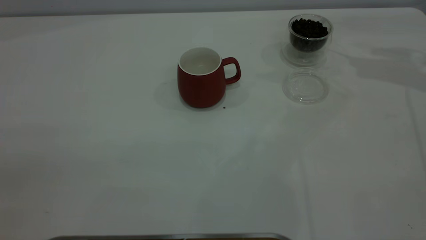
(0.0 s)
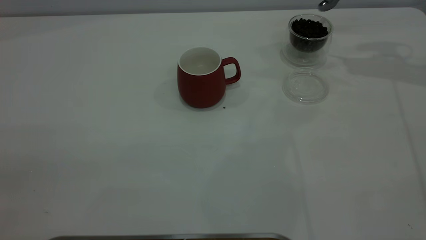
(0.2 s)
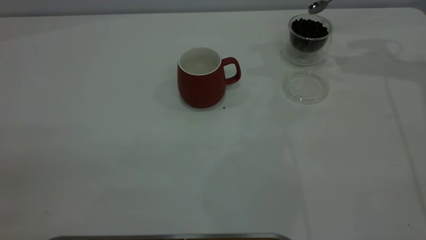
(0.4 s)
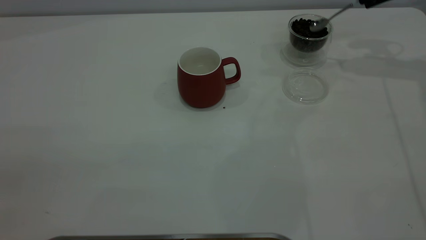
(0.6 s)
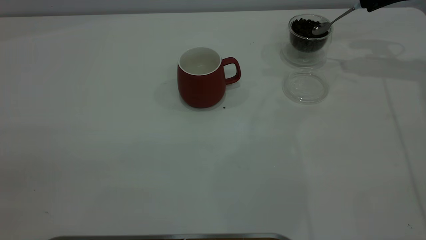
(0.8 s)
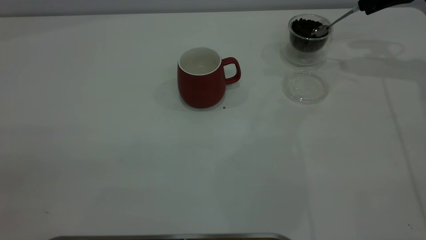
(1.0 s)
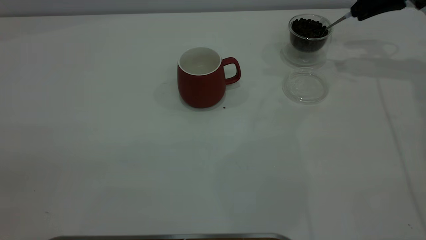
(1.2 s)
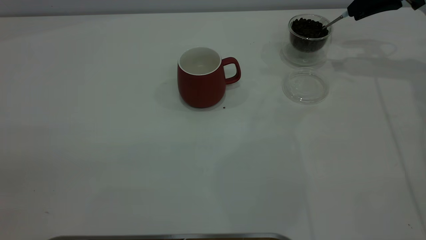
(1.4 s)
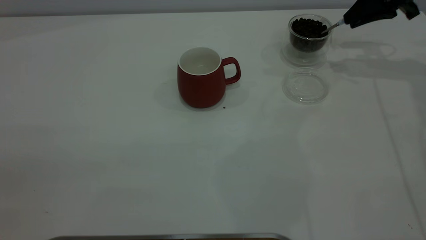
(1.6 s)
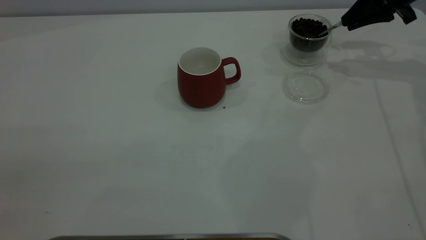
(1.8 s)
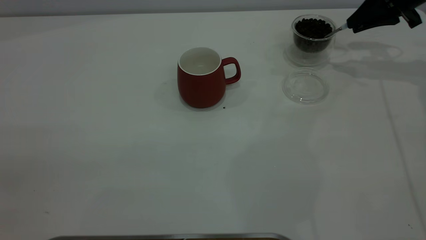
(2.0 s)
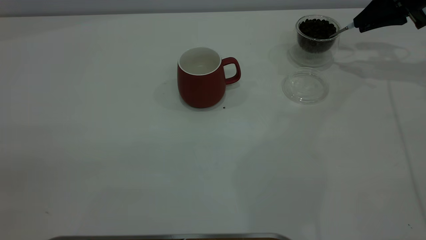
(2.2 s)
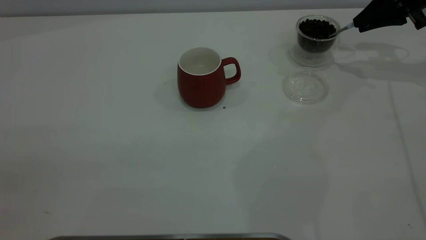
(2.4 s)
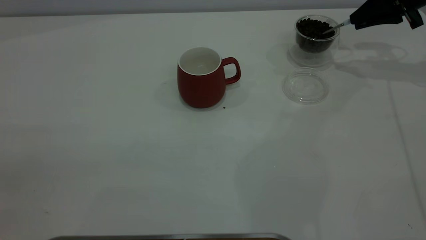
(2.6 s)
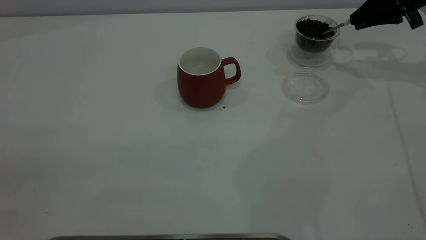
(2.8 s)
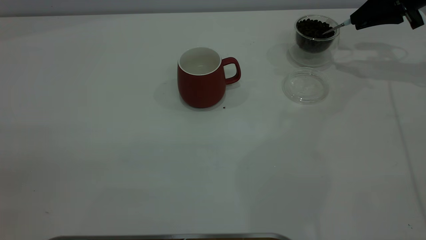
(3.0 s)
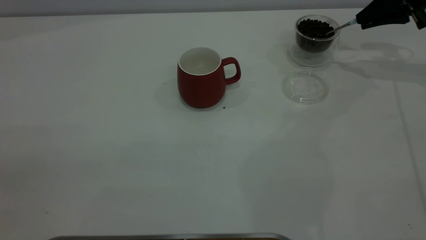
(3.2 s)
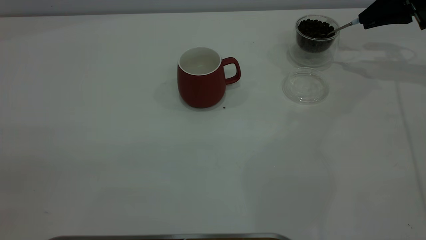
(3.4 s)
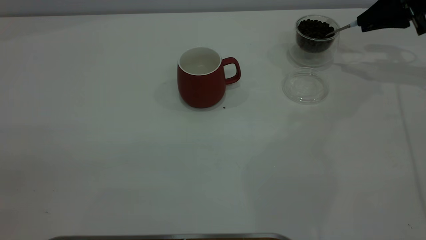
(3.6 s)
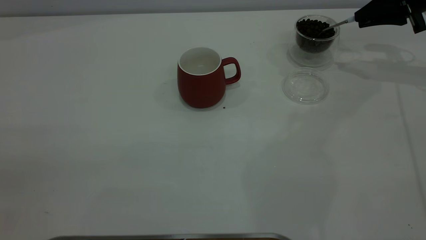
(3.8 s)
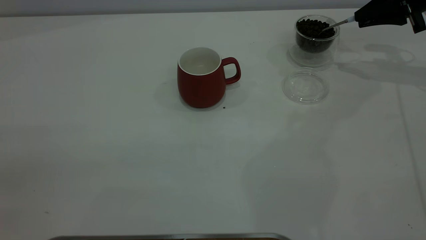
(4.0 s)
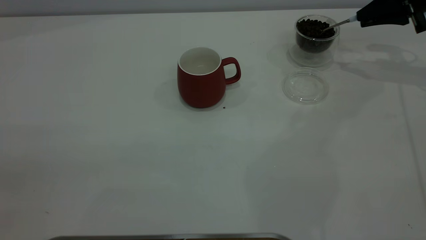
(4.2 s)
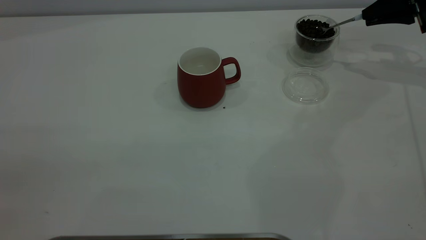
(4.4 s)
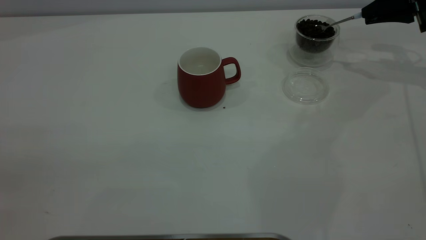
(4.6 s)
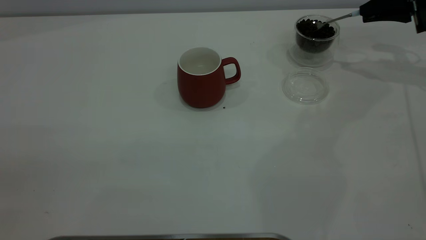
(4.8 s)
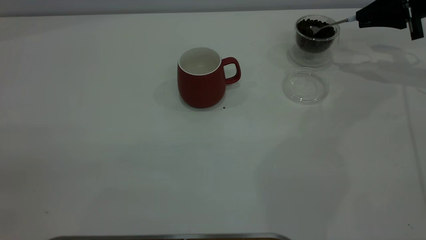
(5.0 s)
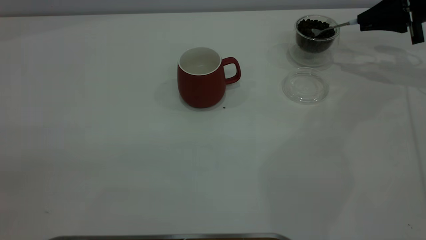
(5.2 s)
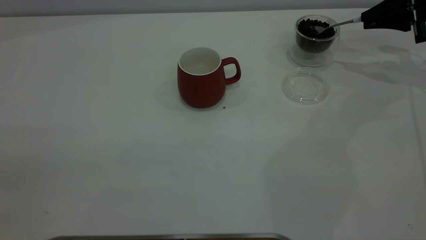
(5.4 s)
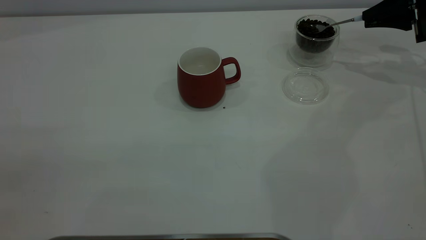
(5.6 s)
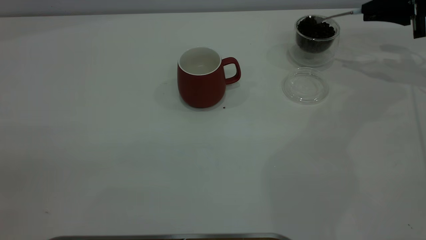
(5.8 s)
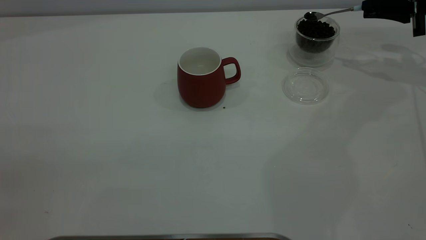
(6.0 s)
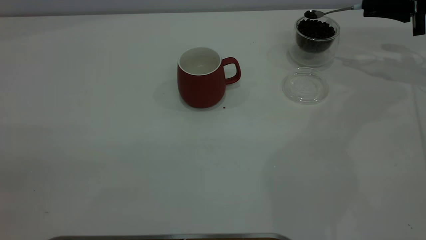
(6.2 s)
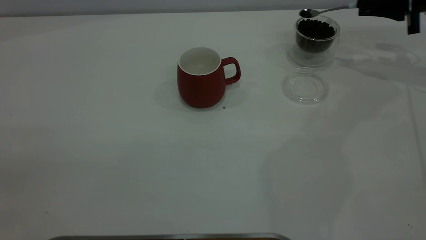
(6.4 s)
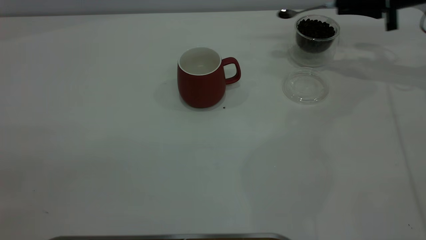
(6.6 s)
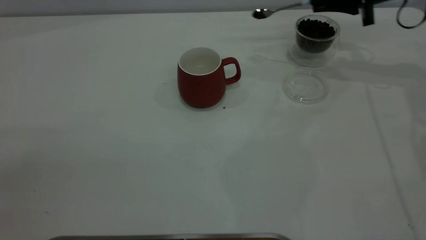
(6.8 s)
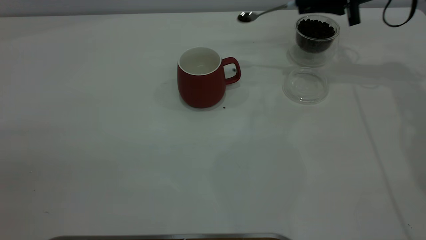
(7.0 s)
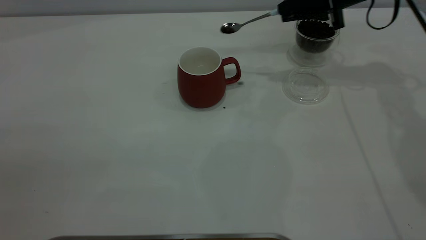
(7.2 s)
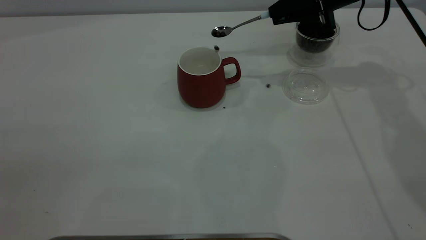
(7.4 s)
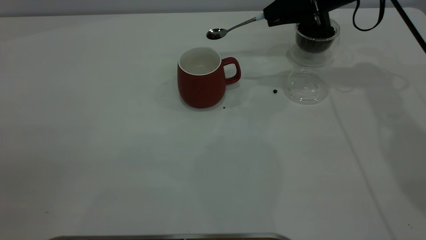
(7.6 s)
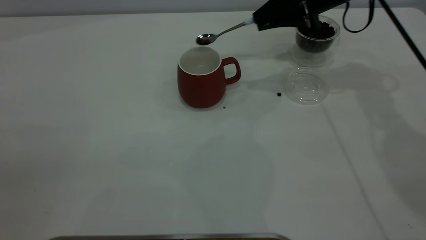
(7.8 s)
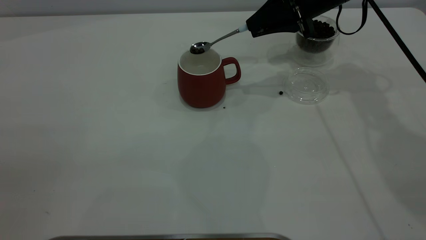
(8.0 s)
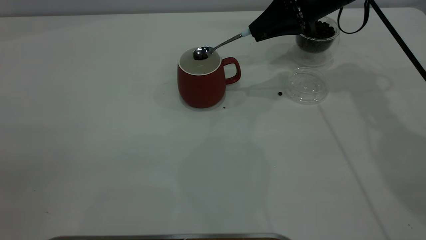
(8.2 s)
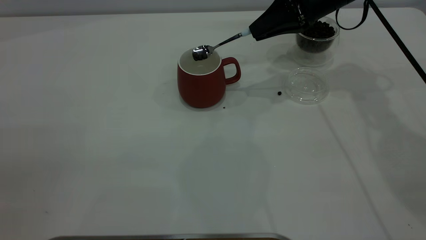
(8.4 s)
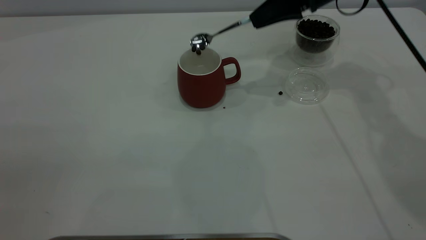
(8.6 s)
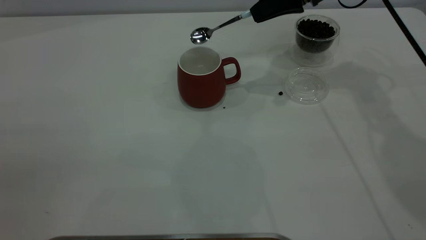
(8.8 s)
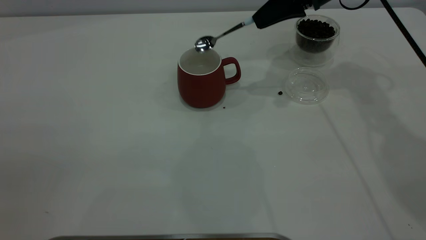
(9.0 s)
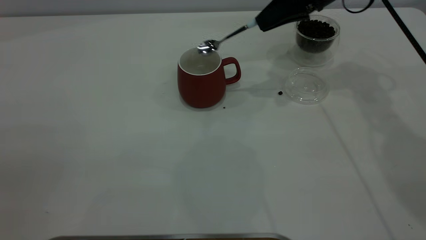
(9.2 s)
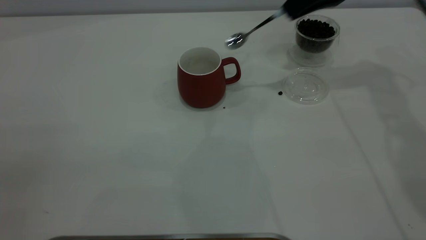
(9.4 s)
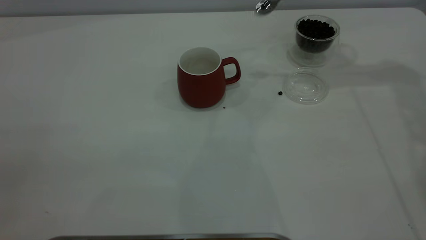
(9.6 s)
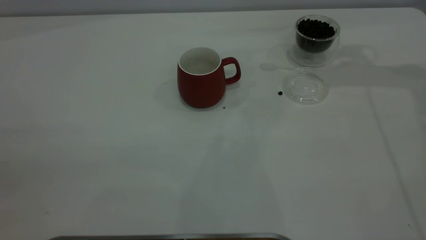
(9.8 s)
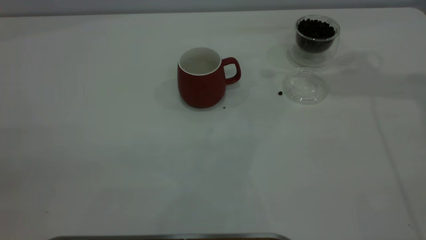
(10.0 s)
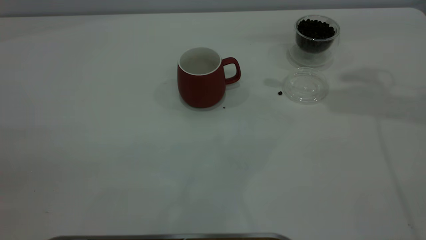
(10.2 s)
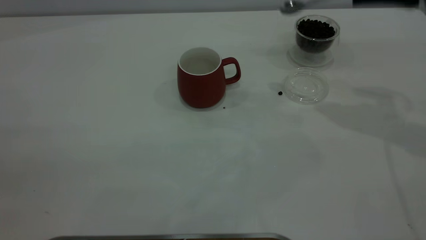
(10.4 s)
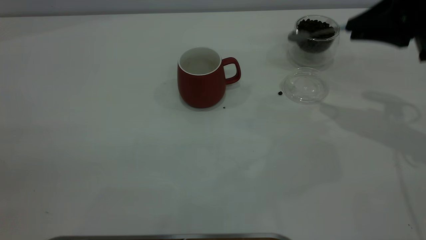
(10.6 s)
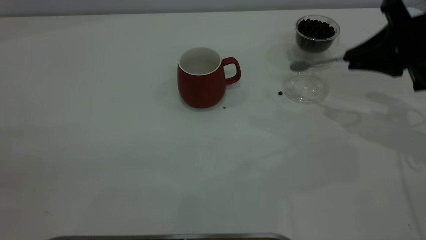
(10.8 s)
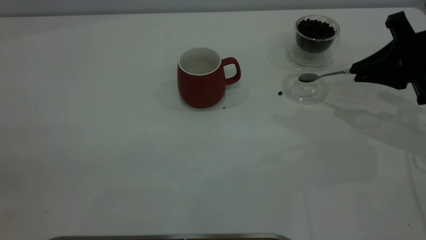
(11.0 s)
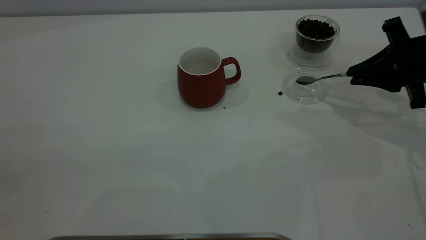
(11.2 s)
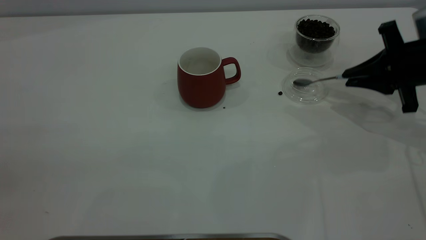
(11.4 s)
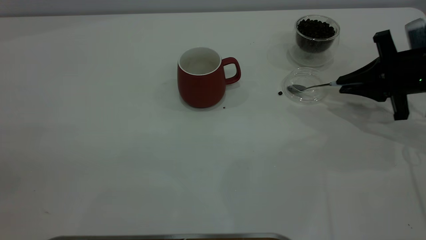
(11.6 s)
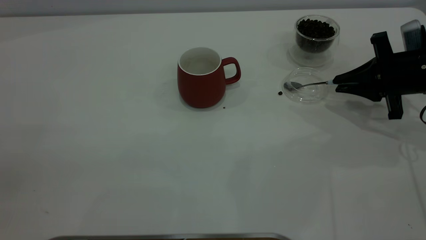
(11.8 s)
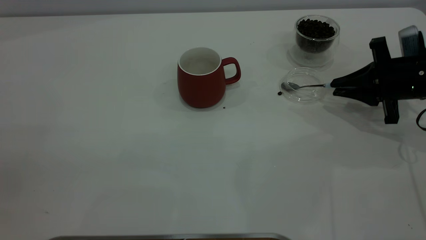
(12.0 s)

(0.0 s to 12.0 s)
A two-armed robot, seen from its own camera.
Task of the whole recording: the left gripper place the red cup in the center of the table, the right gripper take the blue spoon from the cup lid and scoop out the coffee beans from the coffee cup and put them into the red cup, the right gripper put the spoon back into the cup lid.
Step, 0.0 s - 8.8 s: Scoop a spoonful of beans into the cup.
0.0 s - 1.6 s: The right gripper shifts some 5 cm downward.
1.6 s - 3.0 s: The grippers make only small movements.
4.4 s - 6.0 s: The grippers stay close to where they were, moving slightly.
6.0 s - 7.6 s: The right gripper is displaced to the left by some 20 cm.
9.0 s - 10.4 s: The right gripper moves backward and to the right, about 15 cm, and reaches approximately 15 cm upward, then returns.
10.4 s - 12.0 s: The right gripper is displaced downward by about 15 cm.

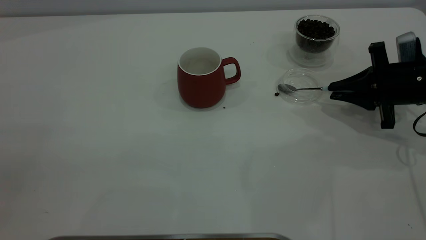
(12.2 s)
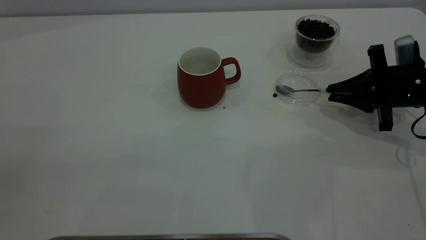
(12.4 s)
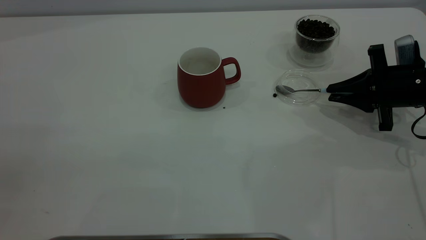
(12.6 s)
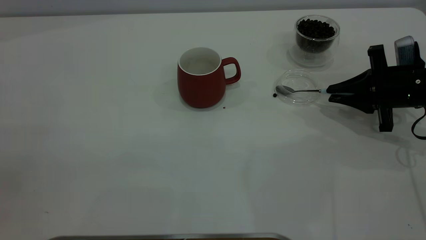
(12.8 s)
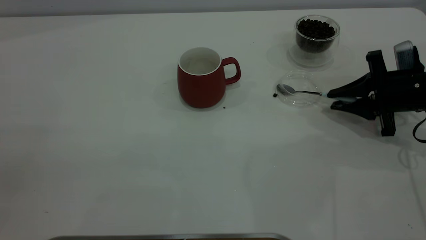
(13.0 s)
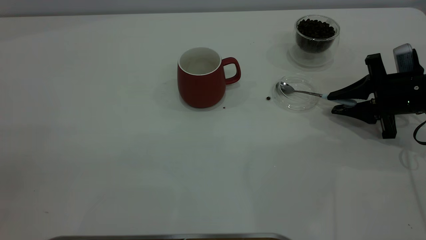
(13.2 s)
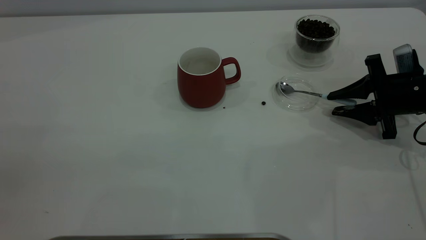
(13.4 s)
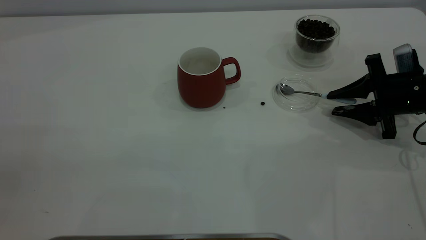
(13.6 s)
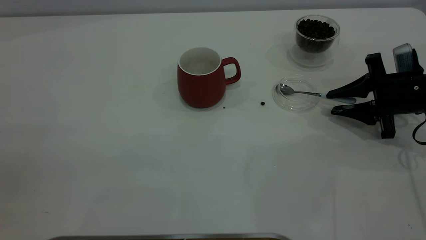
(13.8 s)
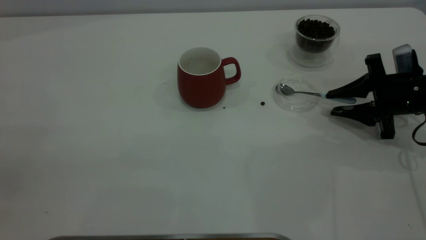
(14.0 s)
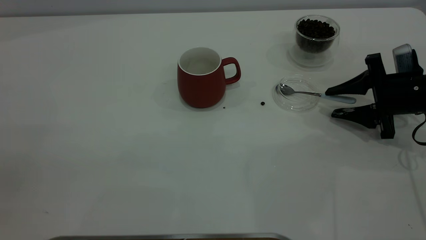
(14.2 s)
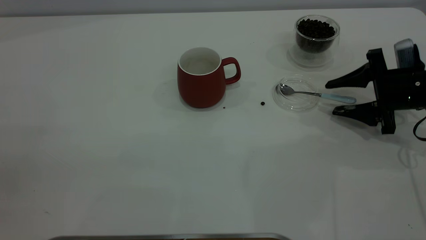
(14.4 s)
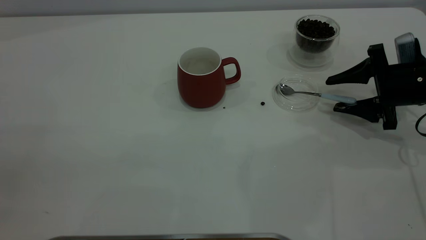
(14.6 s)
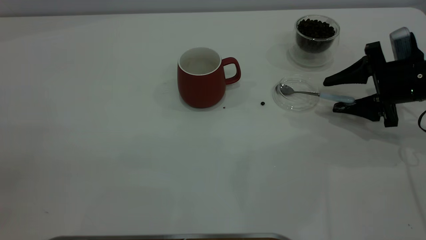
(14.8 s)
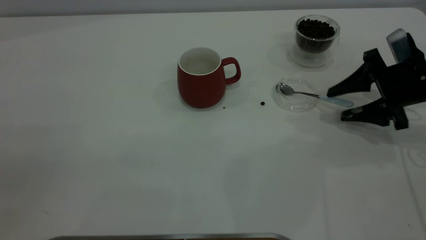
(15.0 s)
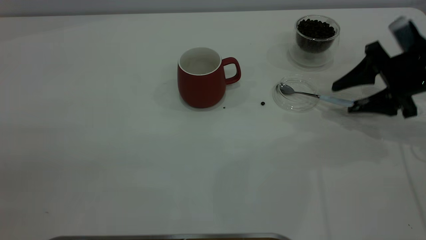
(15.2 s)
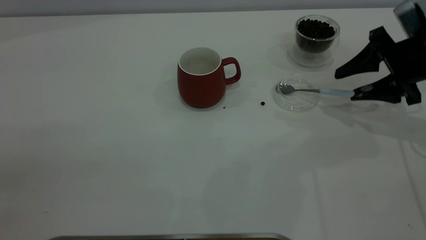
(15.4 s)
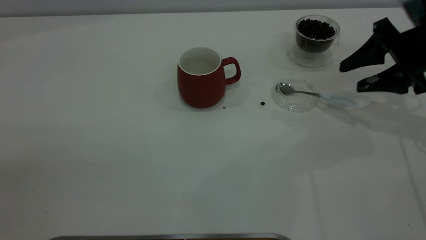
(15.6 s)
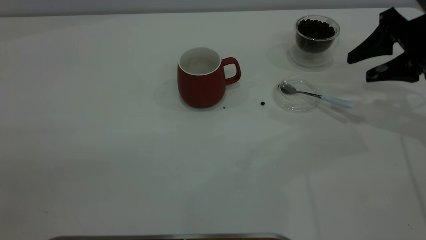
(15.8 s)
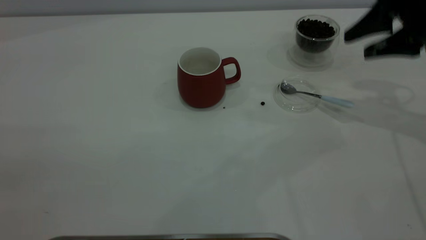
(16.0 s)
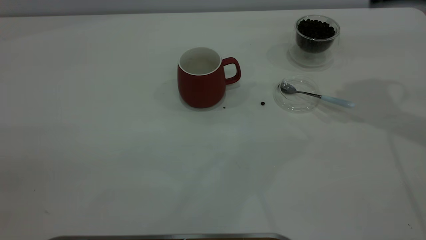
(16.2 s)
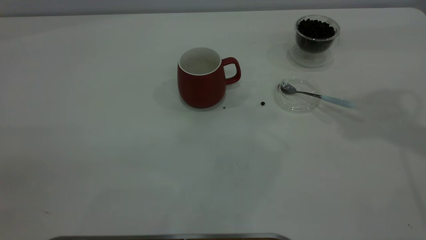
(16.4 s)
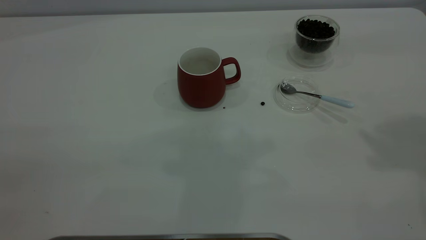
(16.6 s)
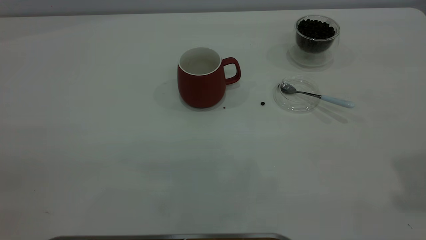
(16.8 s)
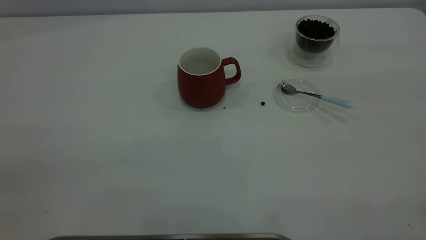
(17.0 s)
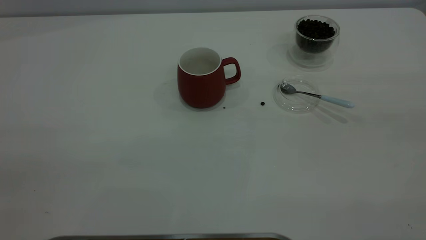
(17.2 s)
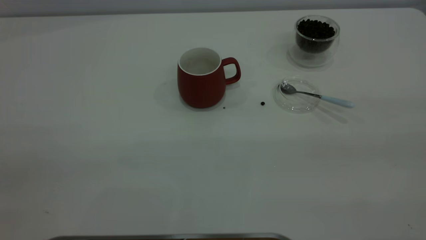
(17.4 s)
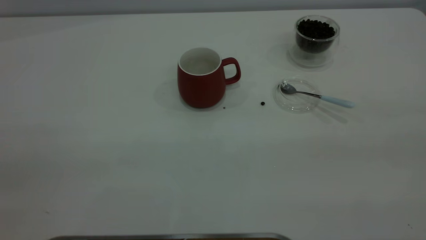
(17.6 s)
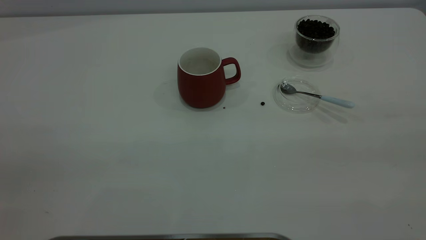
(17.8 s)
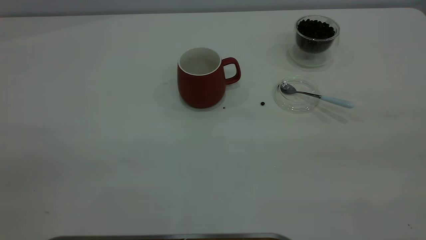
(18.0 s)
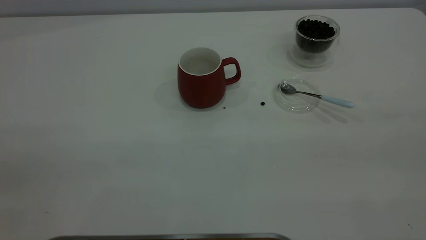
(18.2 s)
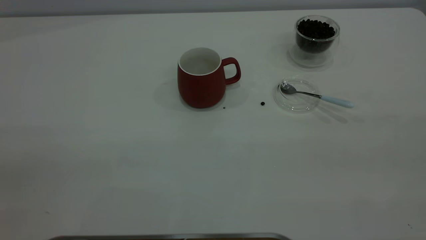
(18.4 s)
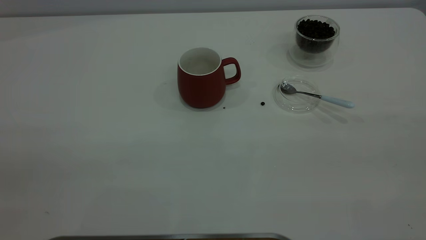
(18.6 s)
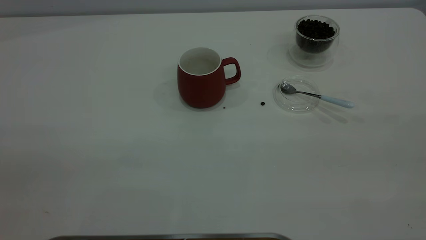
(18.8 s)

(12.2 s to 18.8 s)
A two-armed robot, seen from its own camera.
Task of the whole recording: the left gripper place the red cup in the center of the table, the right gripper take the blue spoon from the cup lid and scoop out the coffee beans from the coffee cup and put them into the red cup, the right gripper put the spoon back into the cup lid.
Step, 12.2 s - 15.6 s: Place the spoon back in its original place.
12.2 s - 13.8 s: The right gripper opens up.
13.8 s - 15.4 s: The right gripper is displaced upward by roughly 5 cm, and opens.
15.4 s - 17.2 s: The right gripper travels backward and upward by approximately 40 cm.
